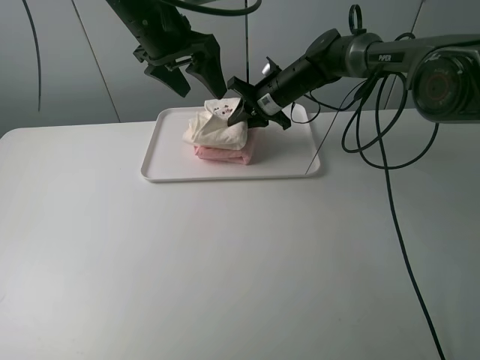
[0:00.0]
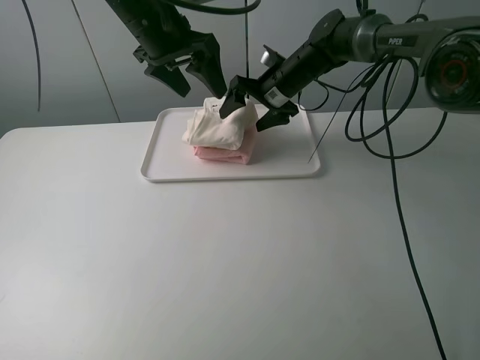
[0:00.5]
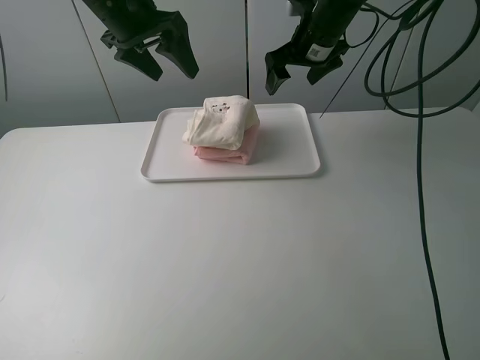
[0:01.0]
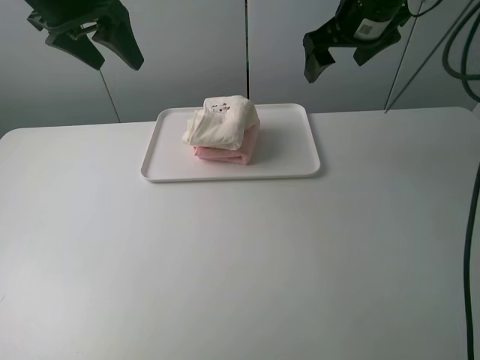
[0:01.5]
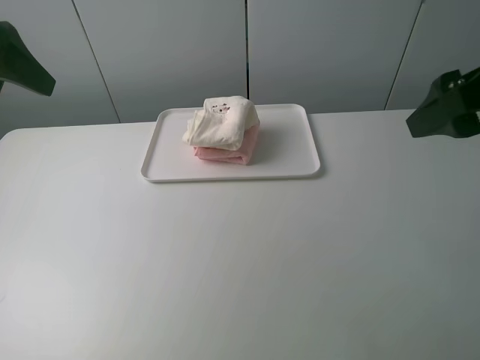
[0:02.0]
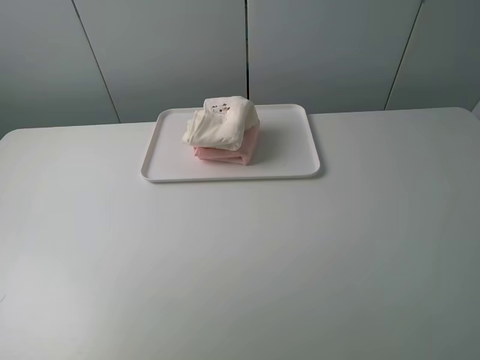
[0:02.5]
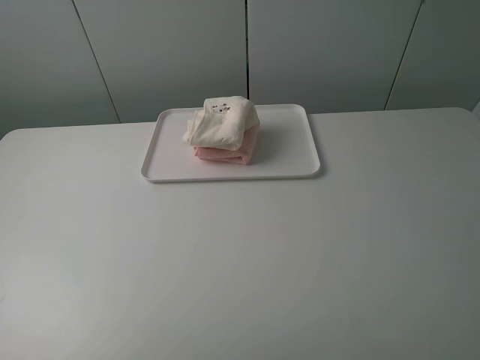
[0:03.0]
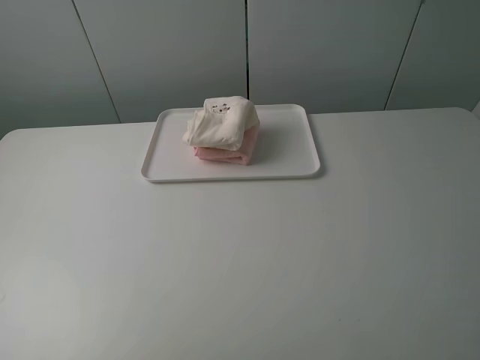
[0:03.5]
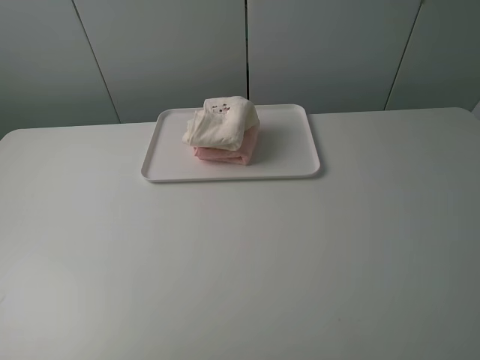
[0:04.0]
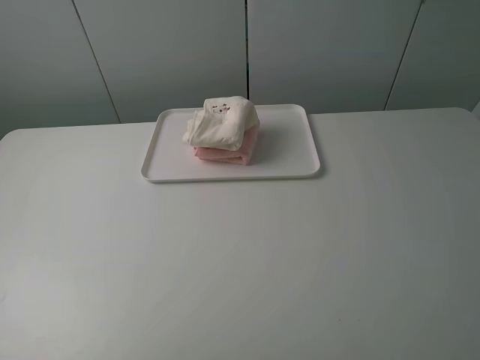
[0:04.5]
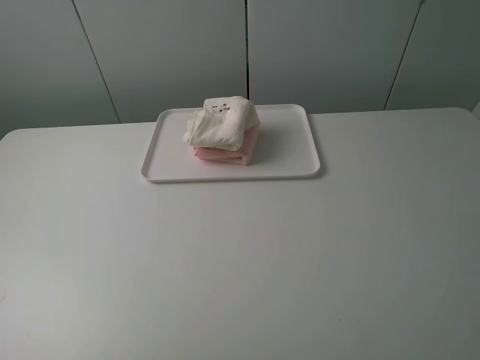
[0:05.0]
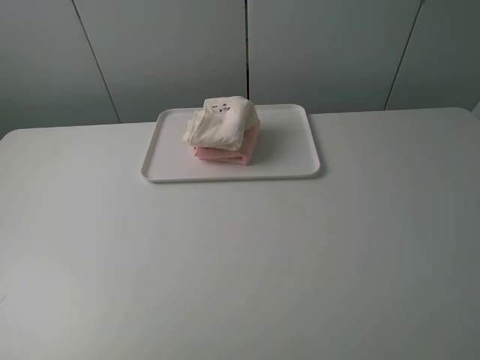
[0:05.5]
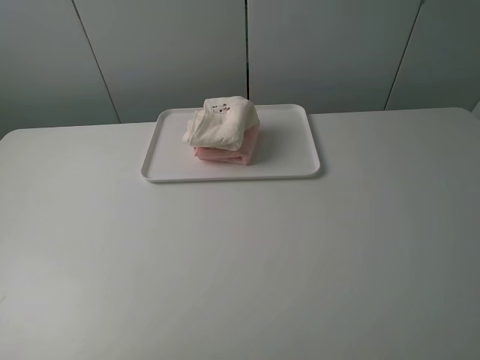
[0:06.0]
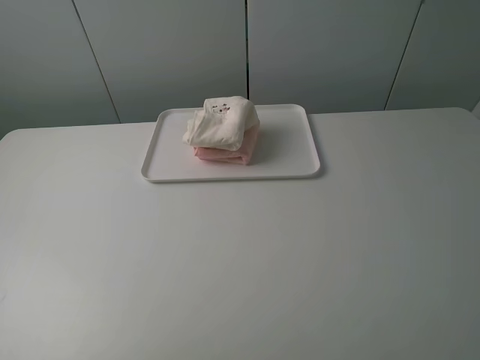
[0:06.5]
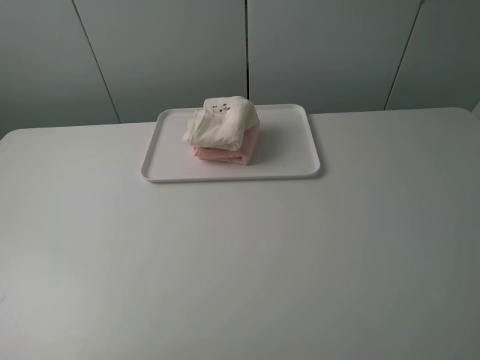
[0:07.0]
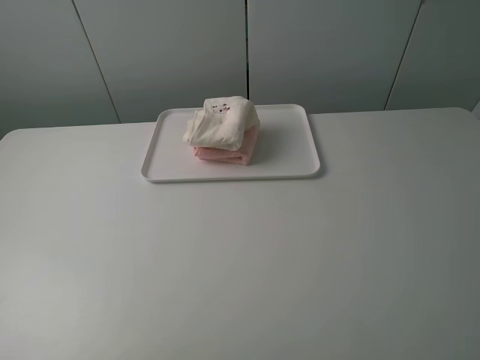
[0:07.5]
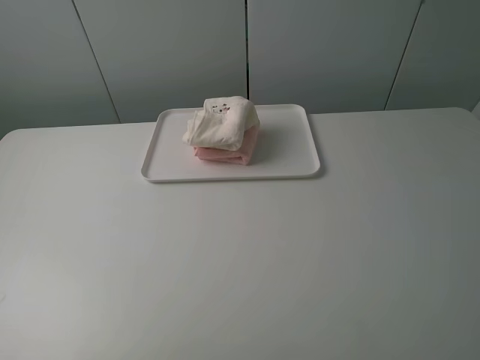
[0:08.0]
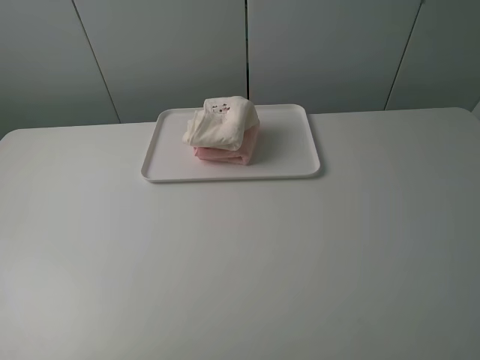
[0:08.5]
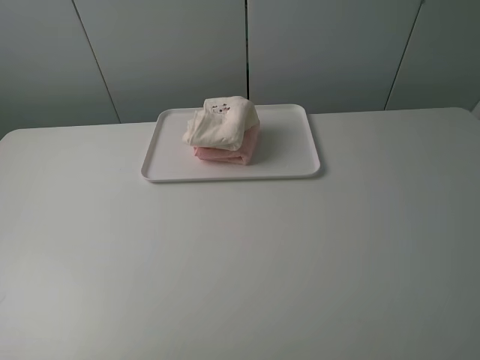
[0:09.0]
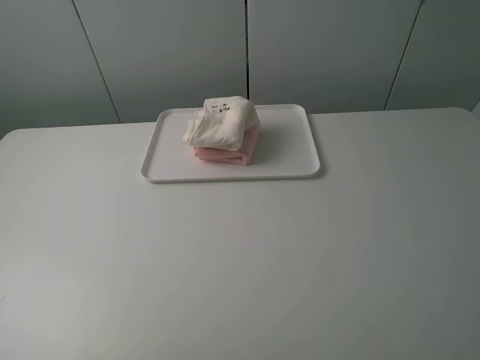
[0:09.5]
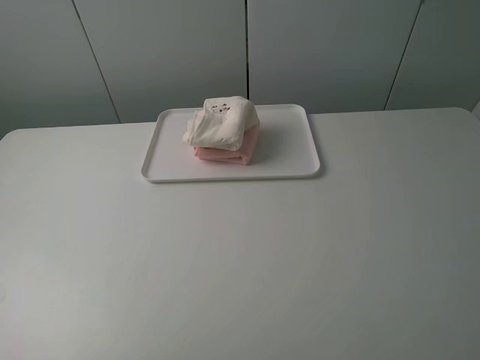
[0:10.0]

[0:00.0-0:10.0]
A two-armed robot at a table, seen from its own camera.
Task of the whole recording: fold one of the towels by two grippers and place it on the tray,then fold another towel by two grippers and place it on the folded towel.
0:00.0 to 0:02.0: The right gripper shifts some 40 cm backward, upward and to the right, and opens its fingers. The left gripper travels to the left and backward by about 25 cm.
0:02.0 to 0:04.0: The grippers both shift backward by approximately 20 cm.
0:08.0 to 0:10.0: Neither gripper changes place.
